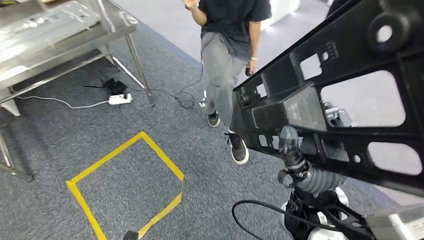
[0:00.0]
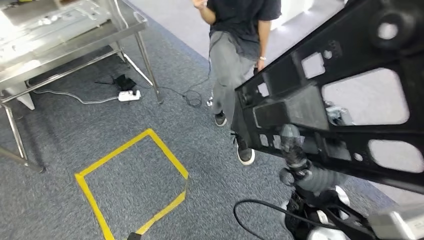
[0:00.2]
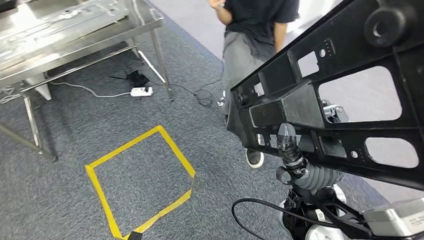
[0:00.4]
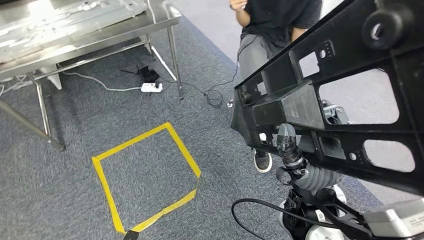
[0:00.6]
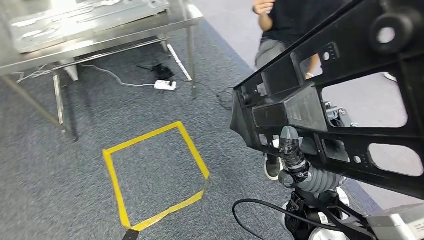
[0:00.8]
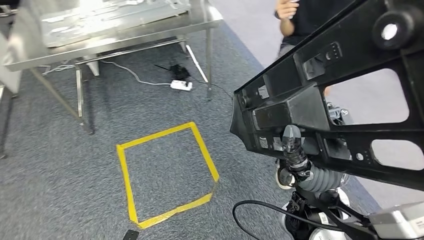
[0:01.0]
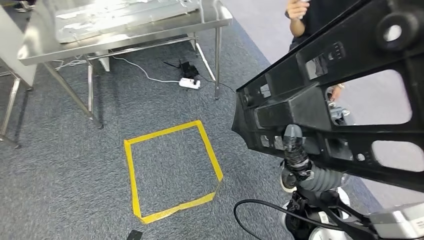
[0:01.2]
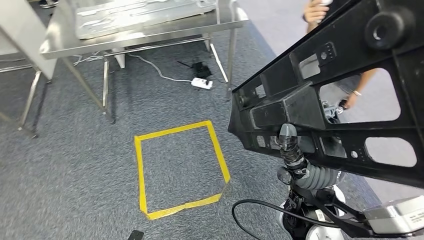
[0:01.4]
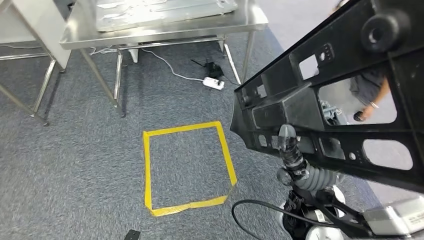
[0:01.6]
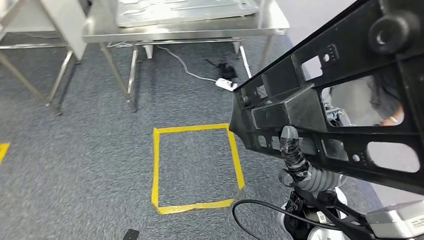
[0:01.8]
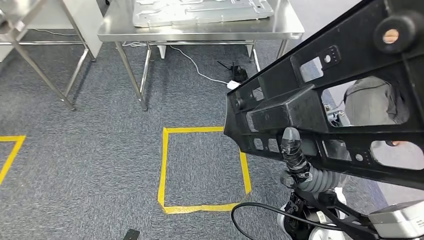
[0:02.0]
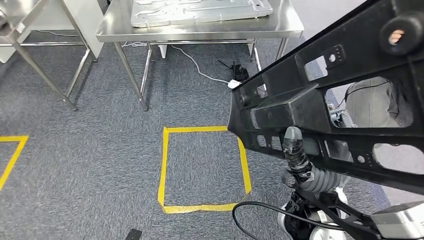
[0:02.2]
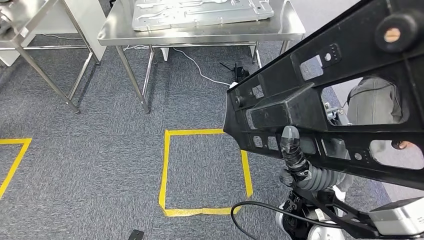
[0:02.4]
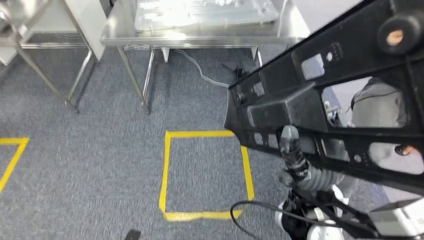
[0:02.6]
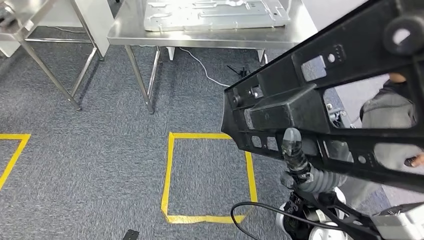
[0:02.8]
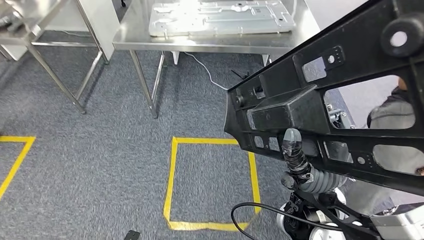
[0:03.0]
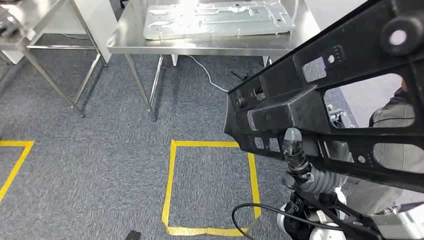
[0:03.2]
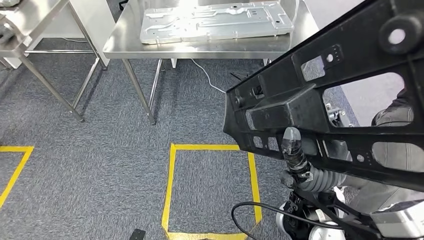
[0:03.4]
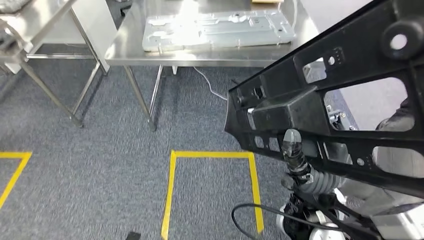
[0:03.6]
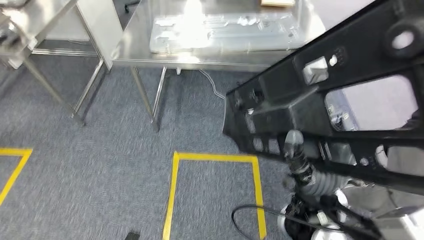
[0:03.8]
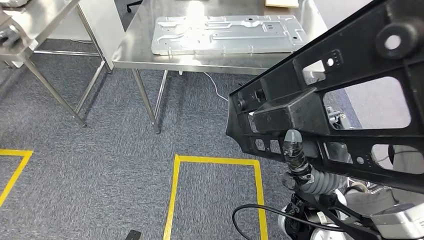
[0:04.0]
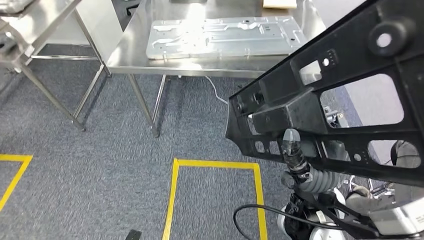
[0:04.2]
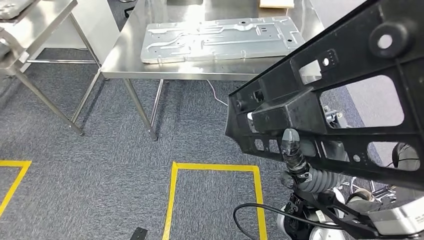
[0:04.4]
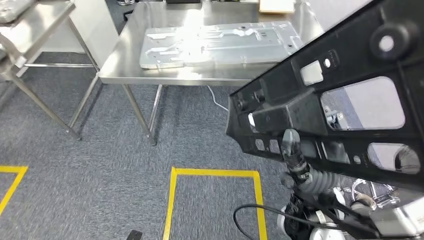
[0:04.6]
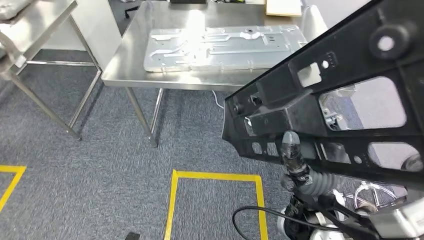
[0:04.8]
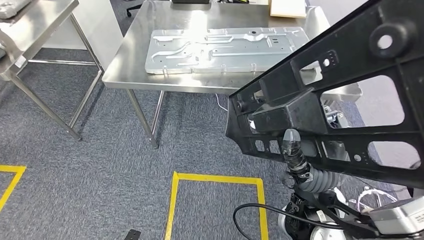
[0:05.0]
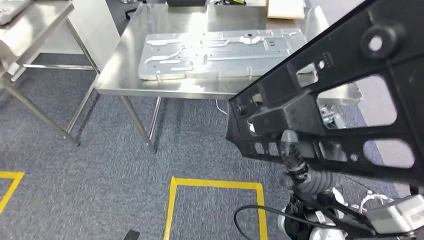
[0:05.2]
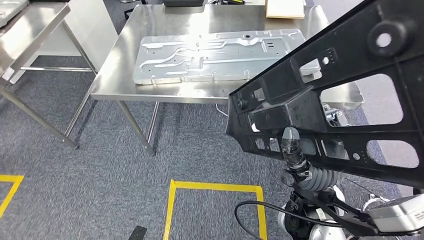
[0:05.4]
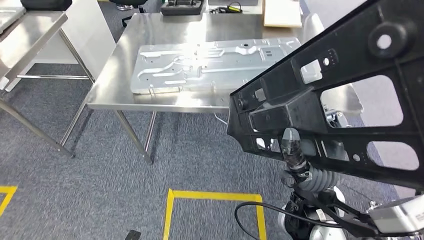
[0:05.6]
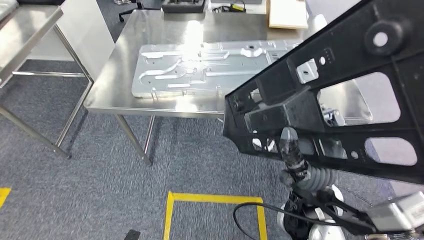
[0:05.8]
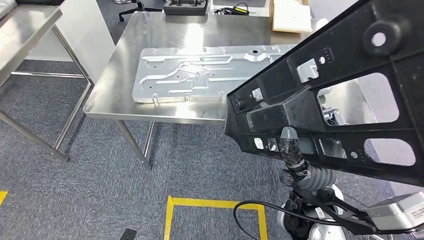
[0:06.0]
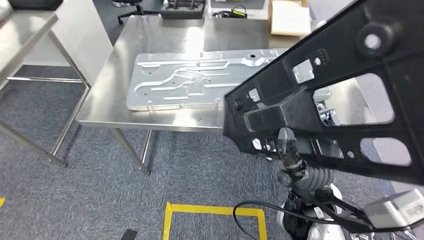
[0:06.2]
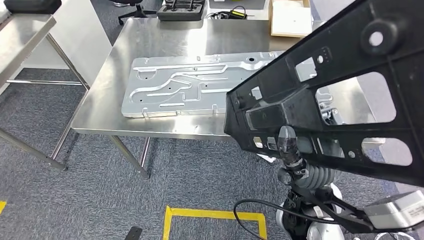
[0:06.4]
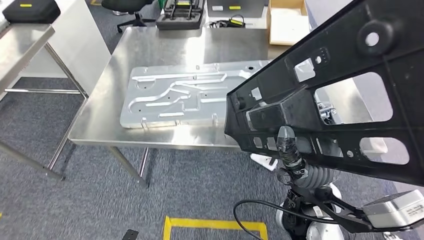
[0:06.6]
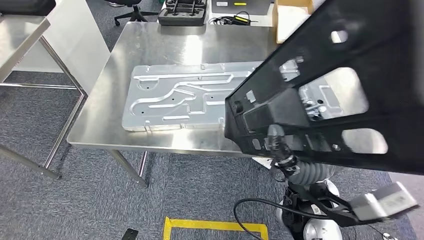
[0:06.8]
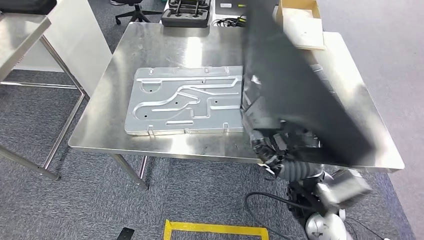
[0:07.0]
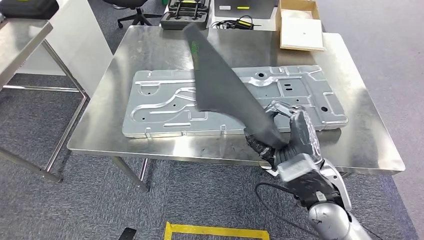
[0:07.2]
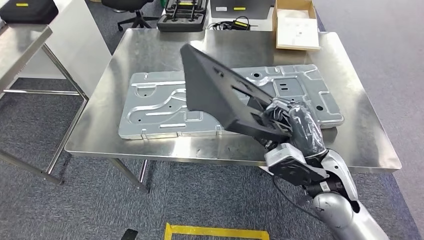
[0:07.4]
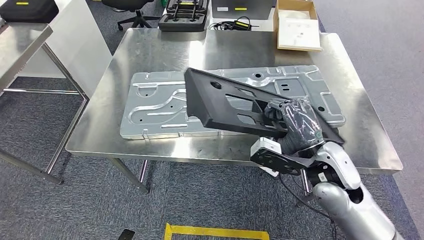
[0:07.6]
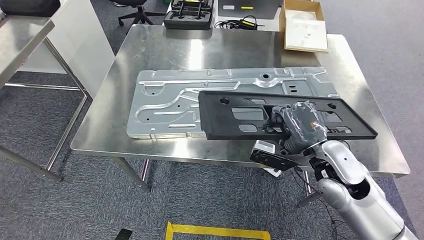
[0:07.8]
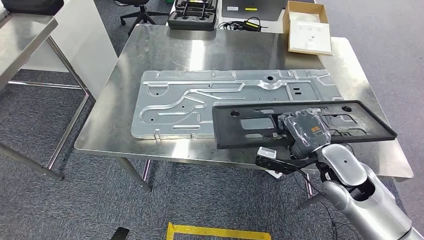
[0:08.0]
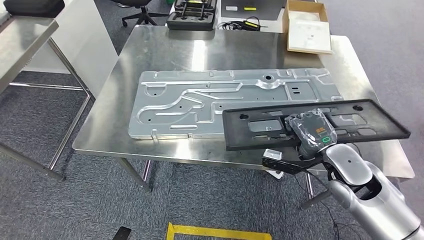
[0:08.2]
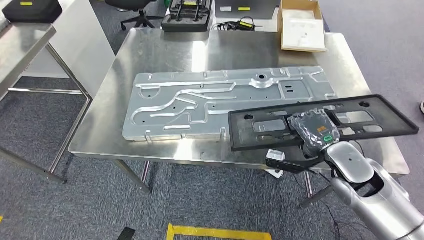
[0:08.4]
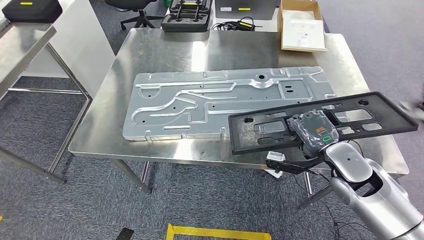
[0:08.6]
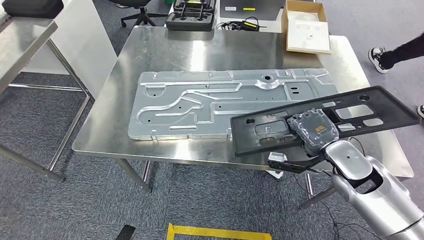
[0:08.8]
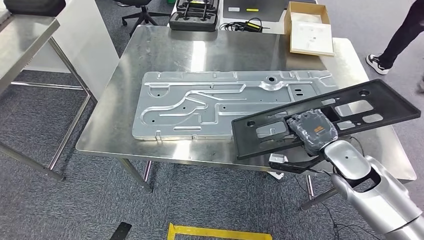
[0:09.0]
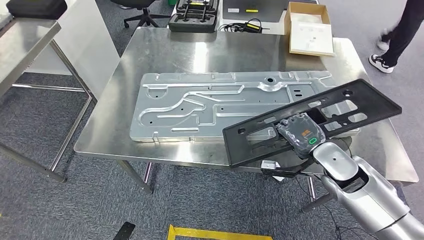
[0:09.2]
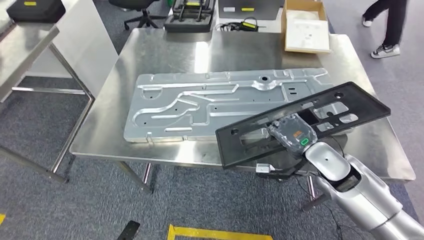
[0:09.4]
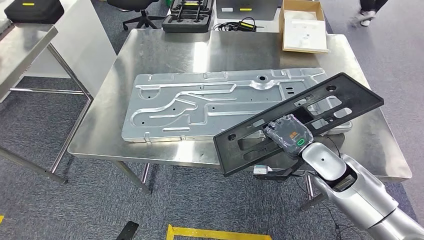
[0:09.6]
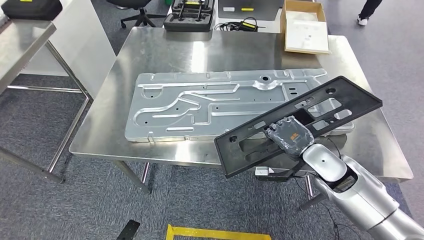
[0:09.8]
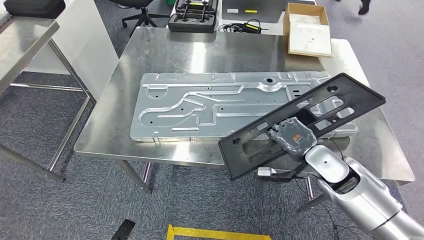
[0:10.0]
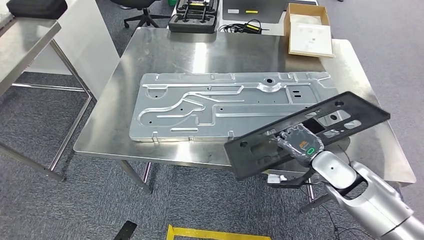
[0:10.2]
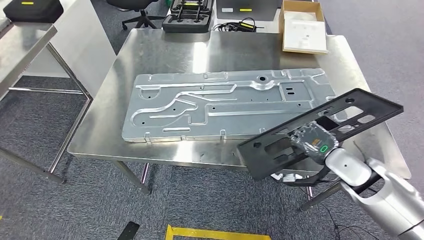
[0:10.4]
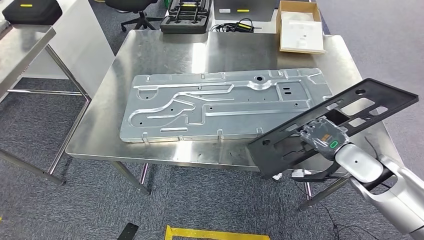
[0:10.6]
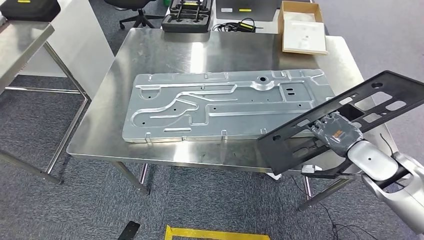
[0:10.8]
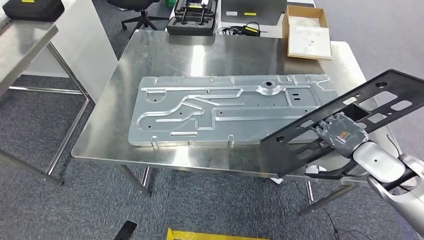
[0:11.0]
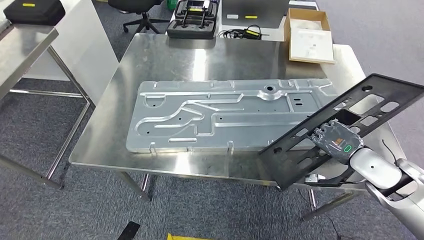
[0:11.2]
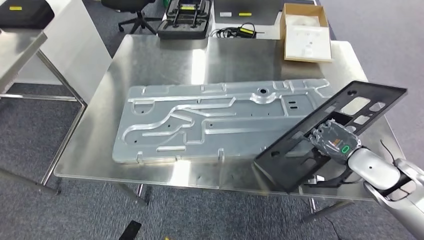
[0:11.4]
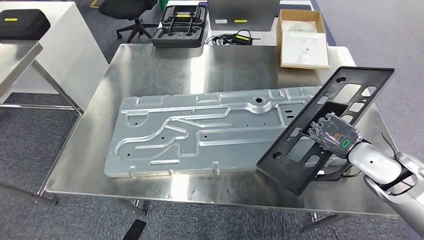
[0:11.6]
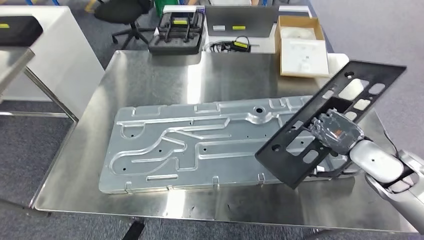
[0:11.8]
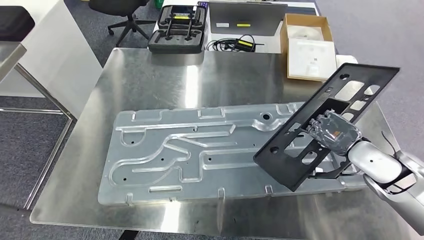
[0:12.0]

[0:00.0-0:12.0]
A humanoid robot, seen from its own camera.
Step, 0:00.0 to 0:03.8: Move the large material to the workbench.

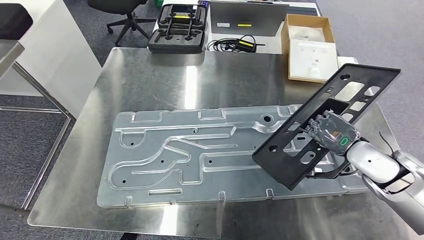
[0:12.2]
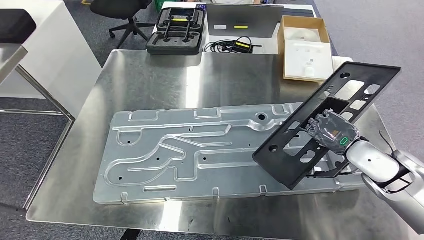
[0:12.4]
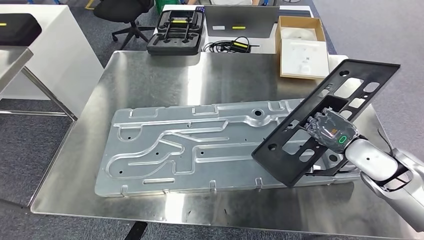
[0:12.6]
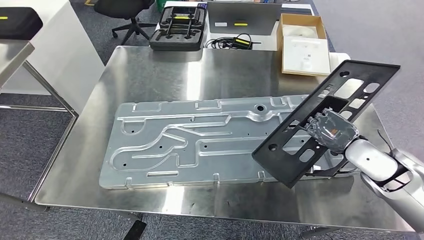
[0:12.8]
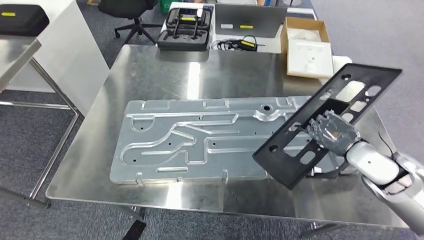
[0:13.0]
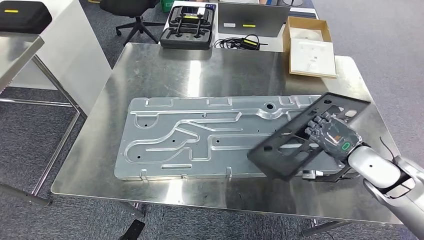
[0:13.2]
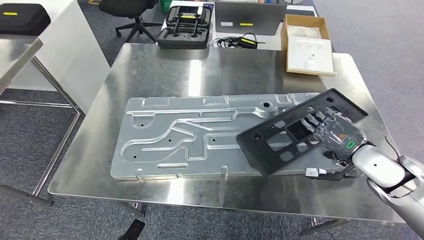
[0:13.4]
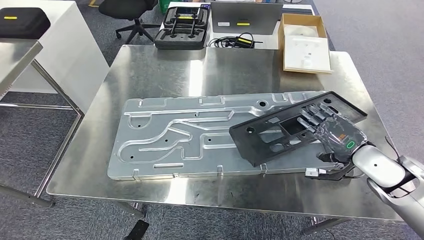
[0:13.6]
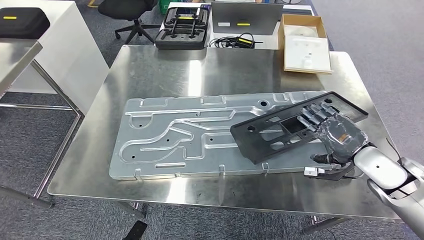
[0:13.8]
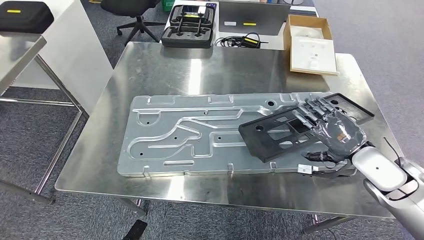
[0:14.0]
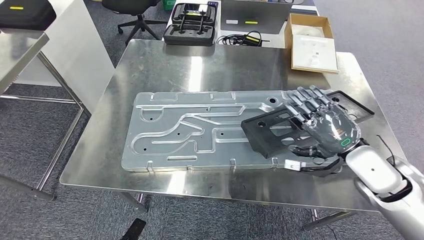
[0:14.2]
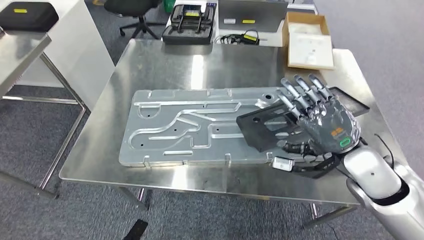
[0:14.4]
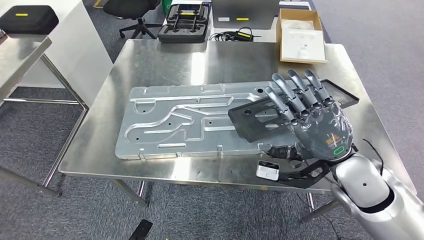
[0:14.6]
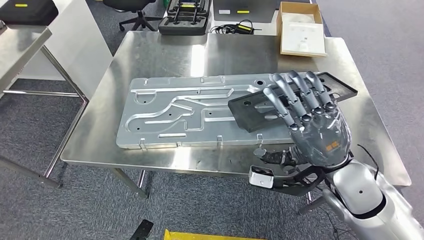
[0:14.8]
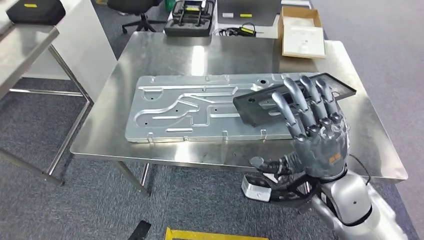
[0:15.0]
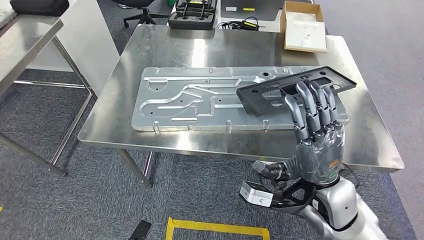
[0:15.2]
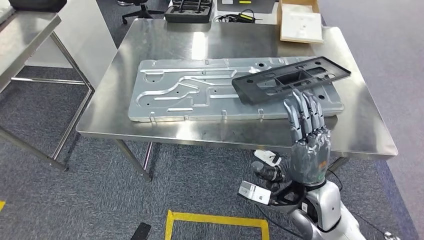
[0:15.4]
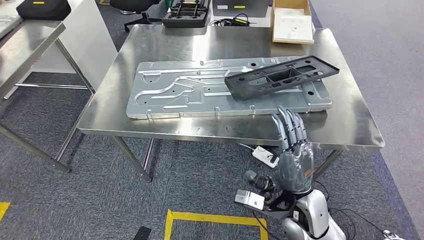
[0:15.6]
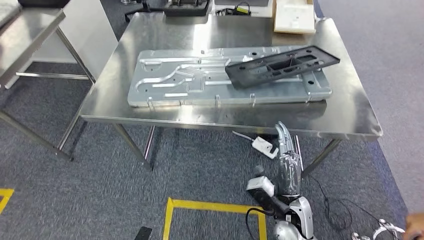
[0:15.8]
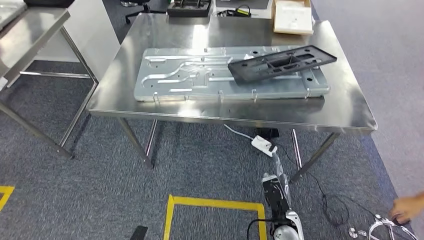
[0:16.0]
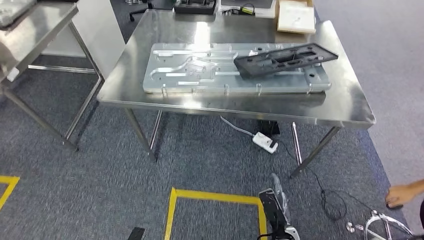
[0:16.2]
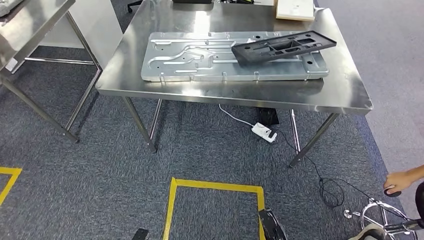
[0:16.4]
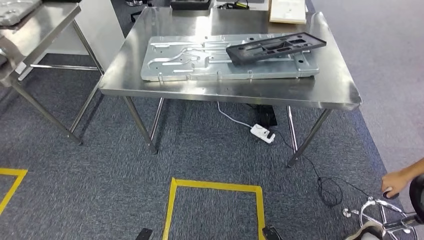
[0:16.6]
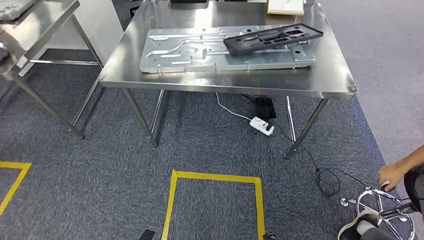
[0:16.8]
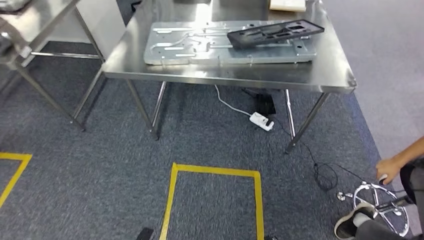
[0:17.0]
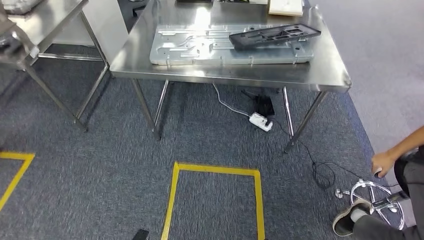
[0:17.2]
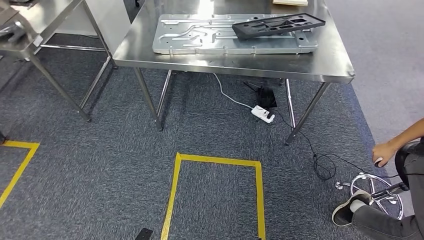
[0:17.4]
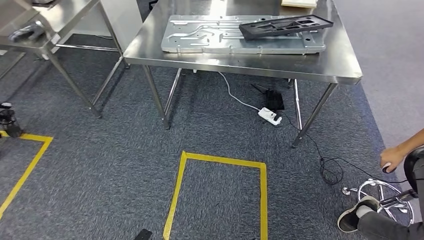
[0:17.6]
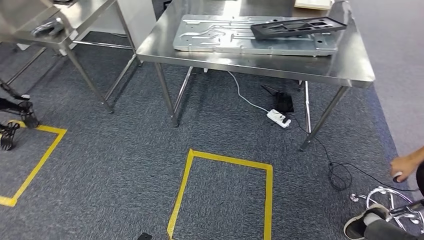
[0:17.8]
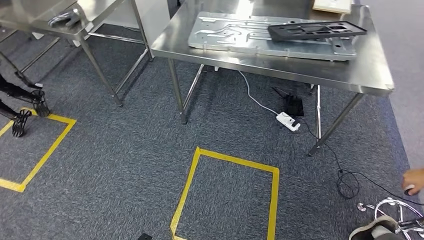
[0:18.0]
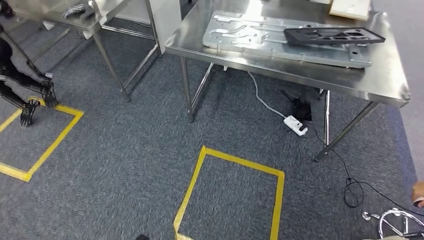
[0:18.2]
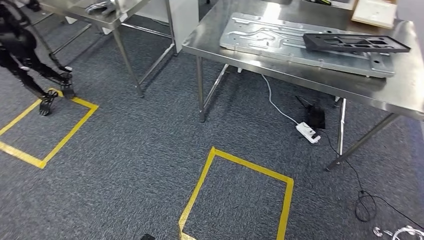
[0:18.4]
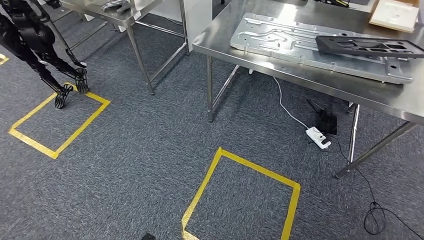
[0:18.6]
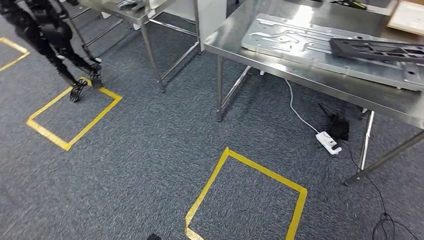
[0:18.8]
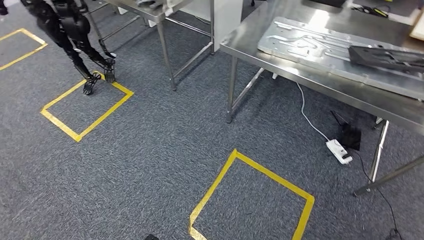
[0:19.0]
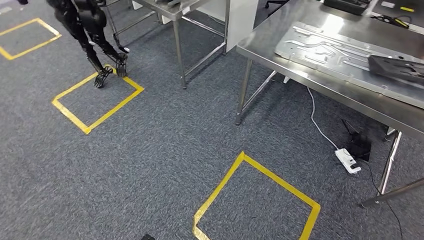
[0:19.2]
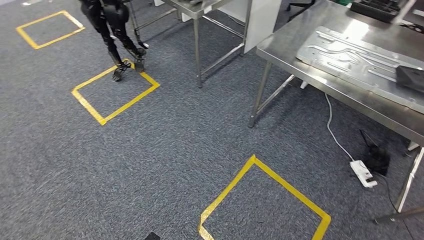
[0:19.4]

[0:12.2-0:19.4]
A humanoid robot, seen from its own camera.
Step, 0:12.2 to 0:14.8: Insert the large material into the corresponding slot on the workbench.
